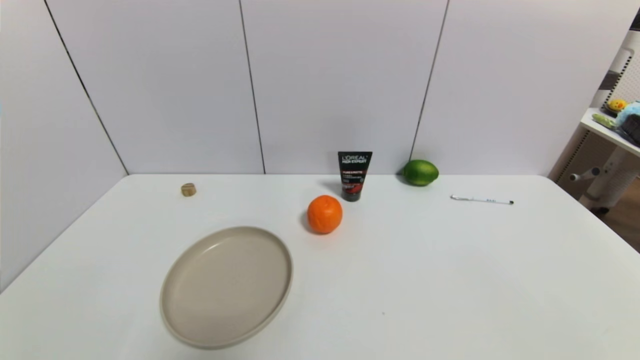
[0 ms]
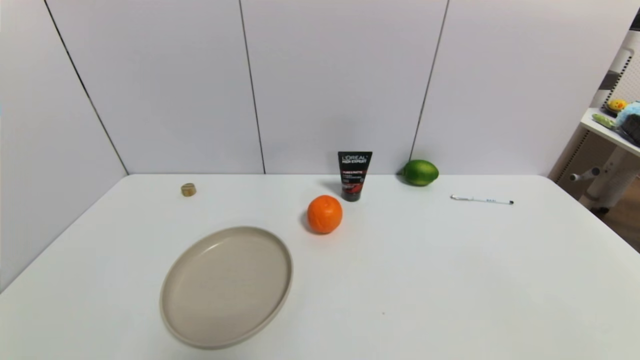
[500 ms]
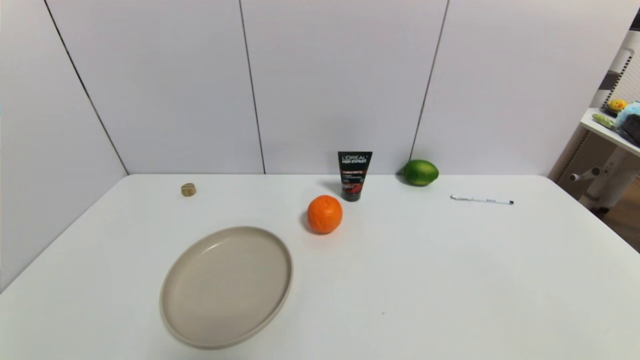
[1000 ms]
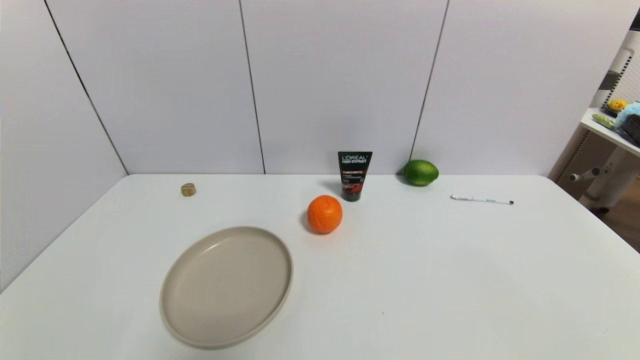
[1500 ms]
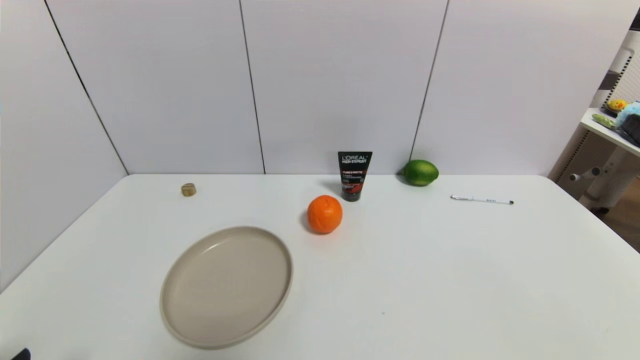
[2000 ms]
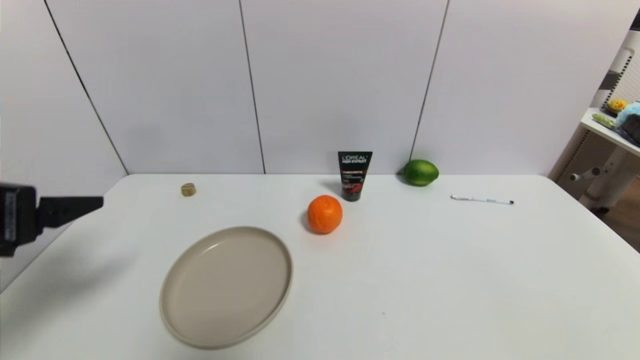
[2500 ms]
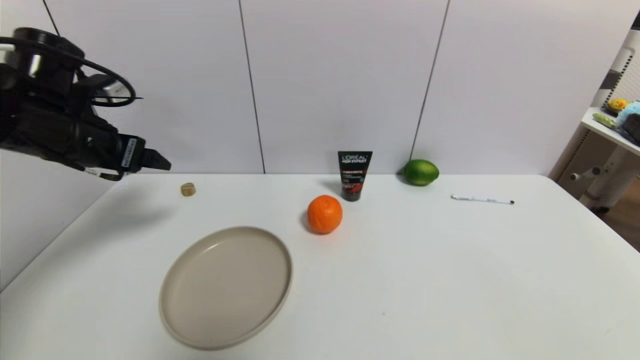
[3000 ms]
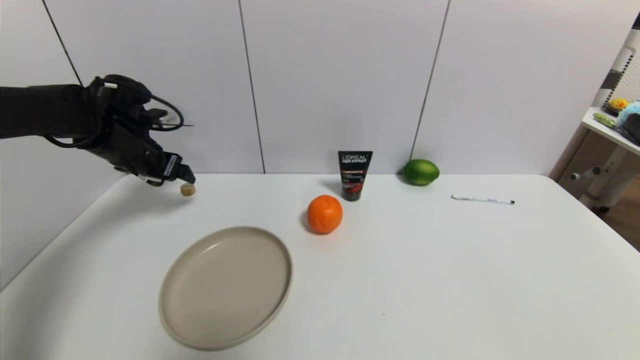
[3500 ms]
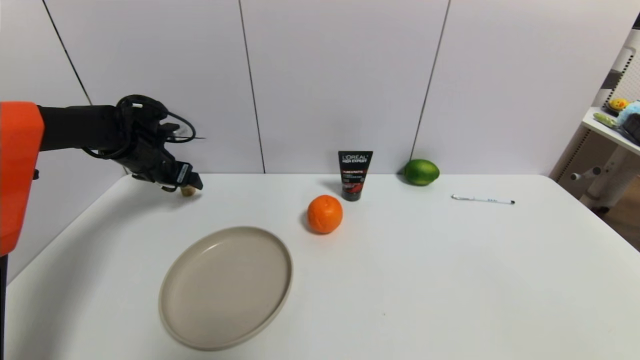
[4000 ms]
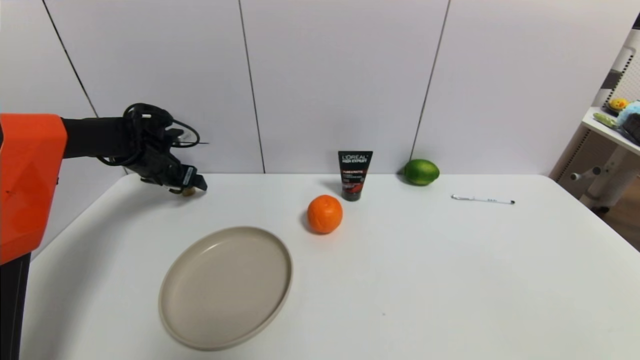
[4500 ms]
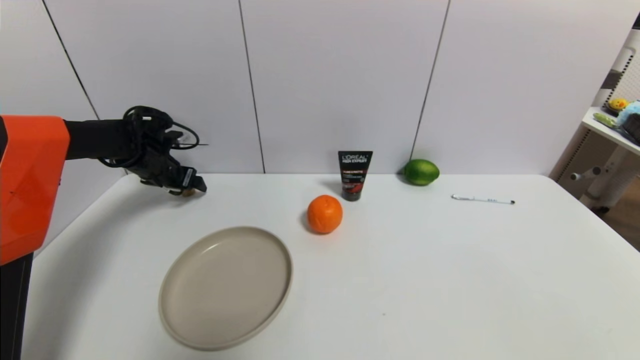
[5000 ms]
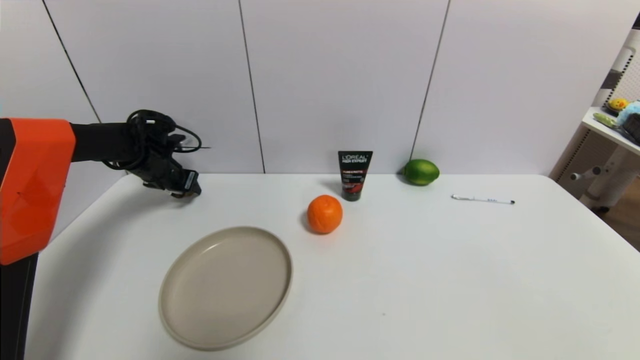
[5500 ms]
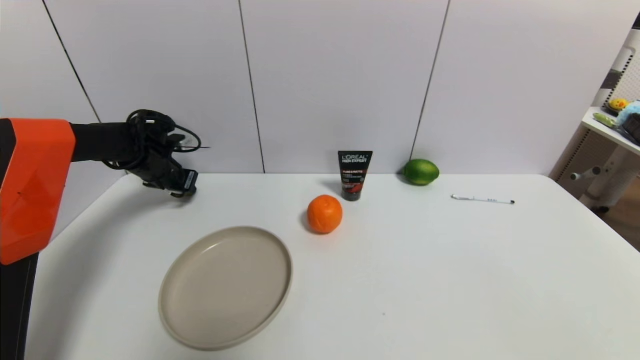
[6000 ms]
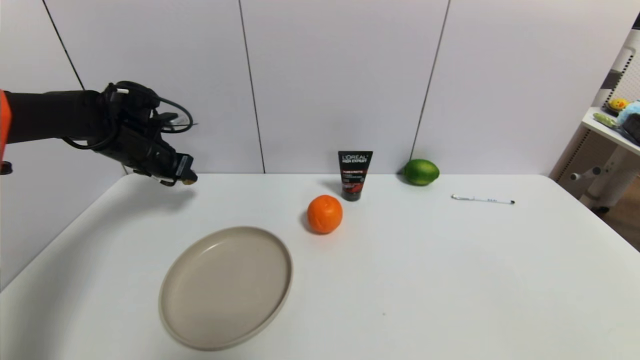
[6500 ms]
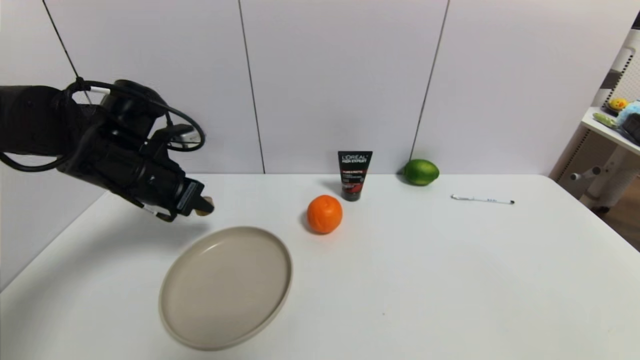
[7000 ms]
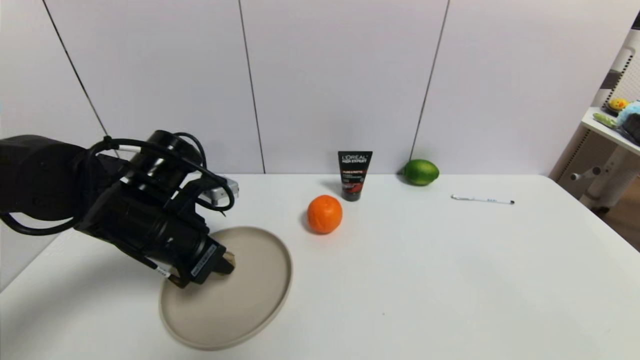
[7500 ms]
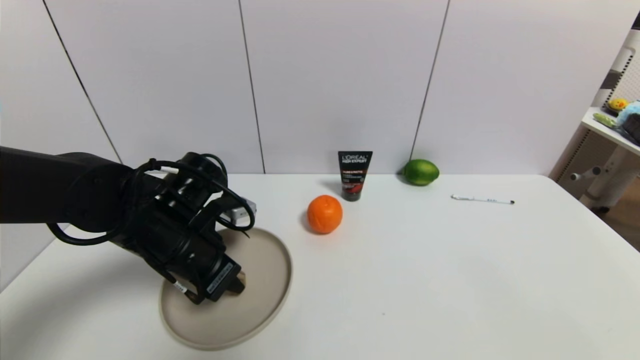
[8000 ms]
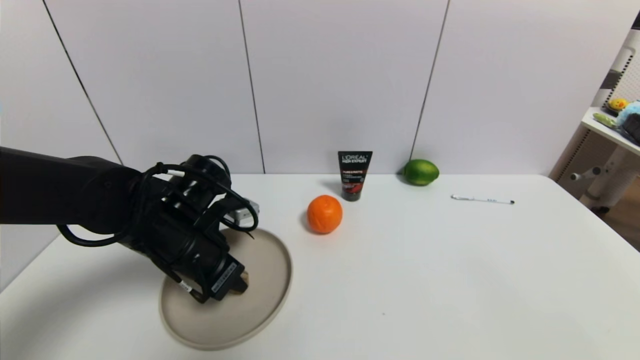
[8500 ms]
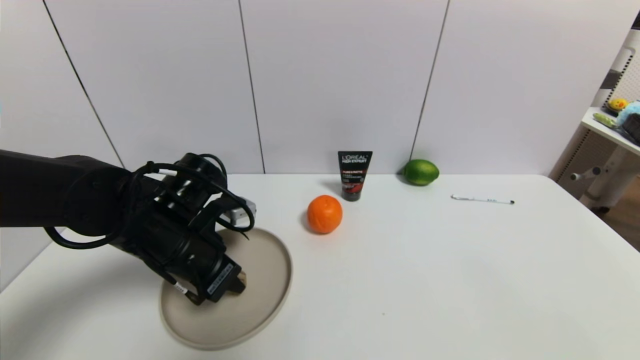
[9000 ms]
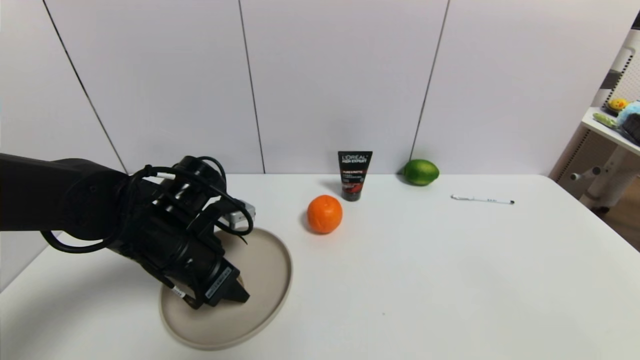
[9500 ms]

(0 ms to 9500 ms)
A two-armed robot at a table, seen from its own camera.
Task of the whole recording: use a gripper to pick the target object and place on the brown plate.
Step, 0 ms - 5500 ms: Grasp the round wooden block with the left gripper.
2000 ms - 4000 ms: The left gripper is displaced forward by about 40 cm.
4000 ms - 5500 ms: The left gripper closes.
5500 ms - 7500 ms: The left gripper is displaced backward and to the right by some 25 cm, and closes up.
7500 ms - 9500 ms: The left gripper opens its fingers.

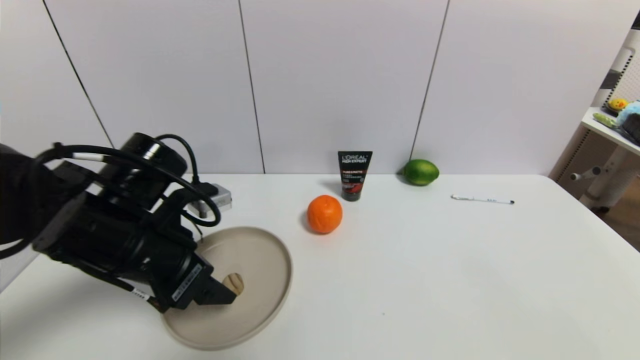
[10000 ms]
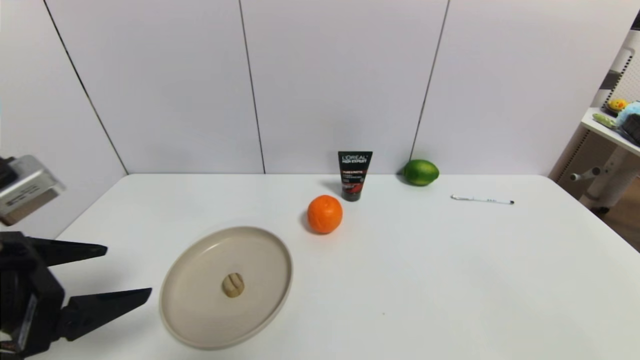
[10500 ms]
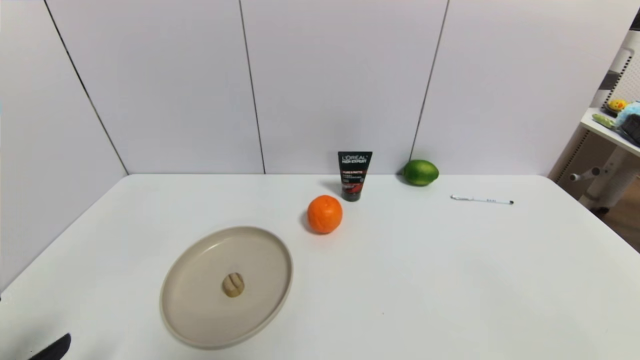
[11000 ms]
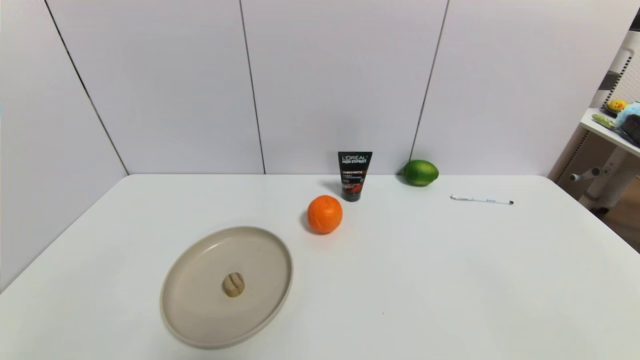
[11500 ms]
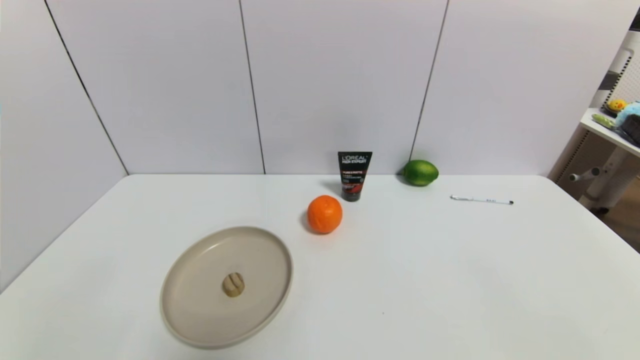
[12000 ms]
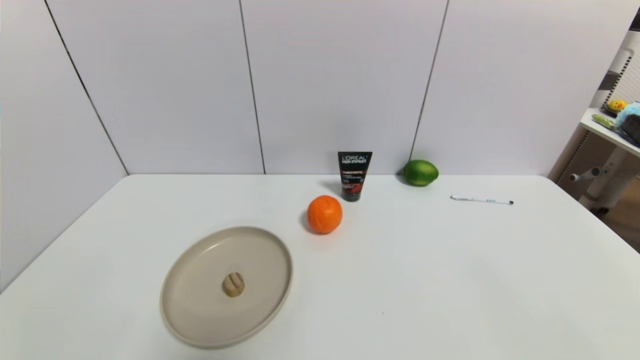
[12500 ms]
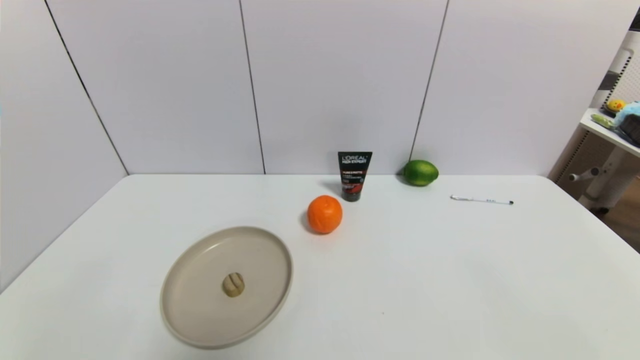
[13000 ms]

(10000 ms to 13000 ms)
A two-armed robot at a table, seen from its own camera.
Task of the whole recording: use a gripper to pick the target object and place on the brown plate.
10000 ms - 11500 ms: The left gripper is displaced backward, downward and to the left by about 30 cm.
